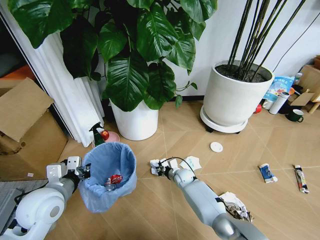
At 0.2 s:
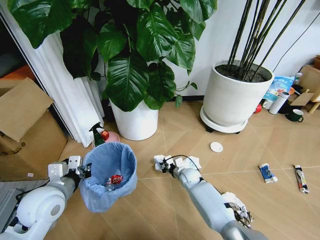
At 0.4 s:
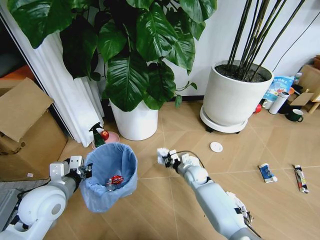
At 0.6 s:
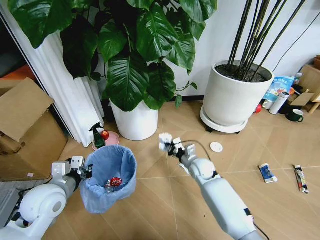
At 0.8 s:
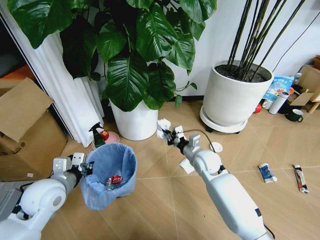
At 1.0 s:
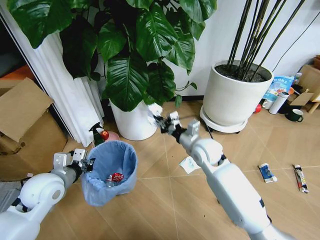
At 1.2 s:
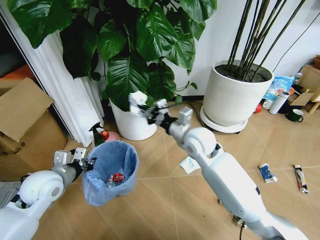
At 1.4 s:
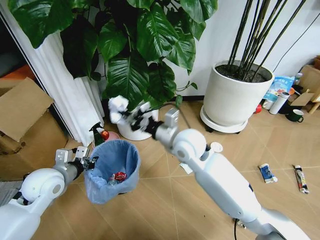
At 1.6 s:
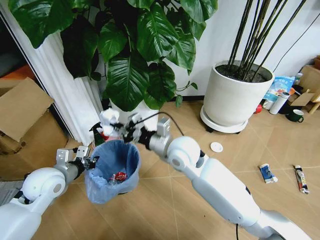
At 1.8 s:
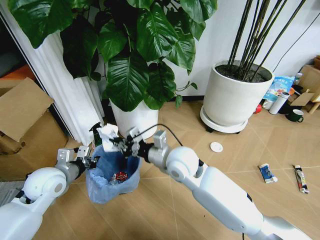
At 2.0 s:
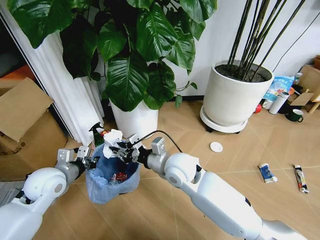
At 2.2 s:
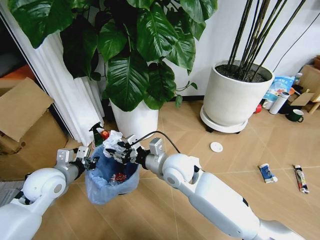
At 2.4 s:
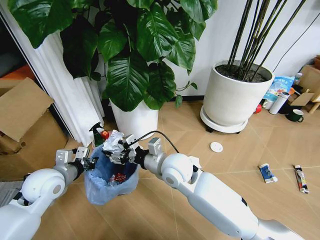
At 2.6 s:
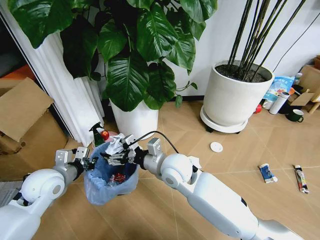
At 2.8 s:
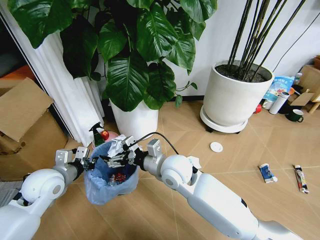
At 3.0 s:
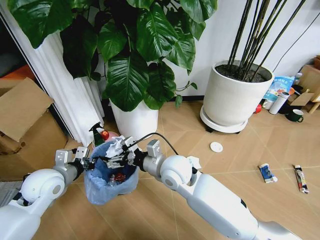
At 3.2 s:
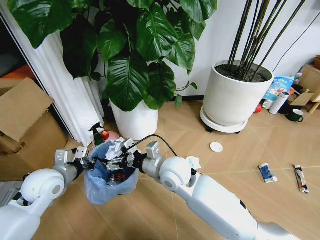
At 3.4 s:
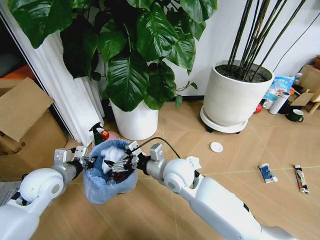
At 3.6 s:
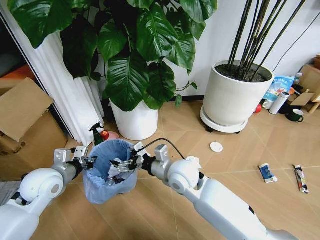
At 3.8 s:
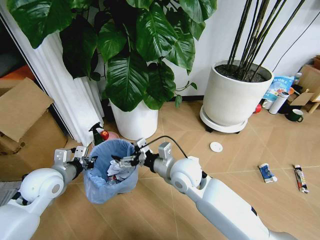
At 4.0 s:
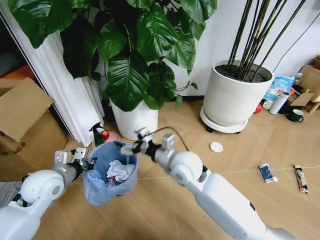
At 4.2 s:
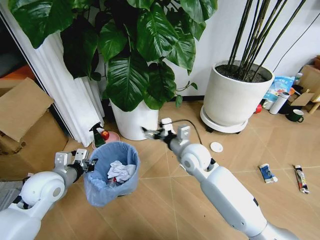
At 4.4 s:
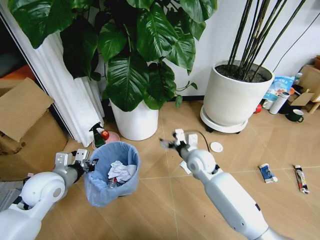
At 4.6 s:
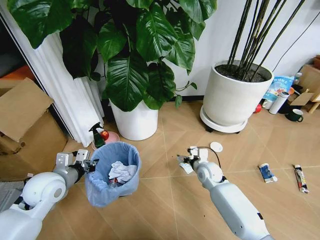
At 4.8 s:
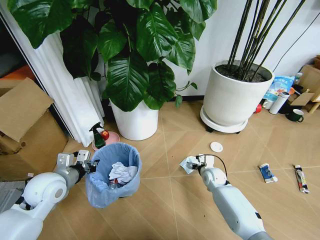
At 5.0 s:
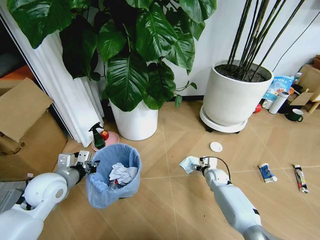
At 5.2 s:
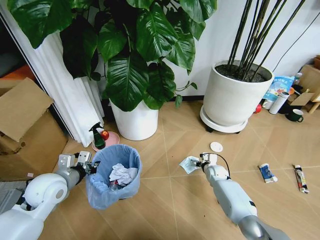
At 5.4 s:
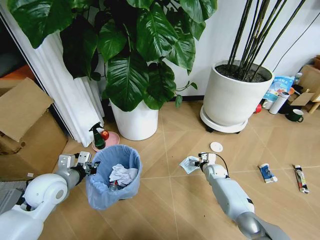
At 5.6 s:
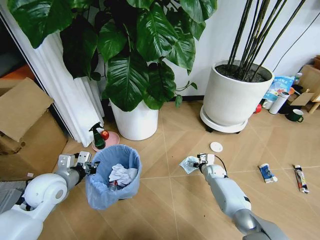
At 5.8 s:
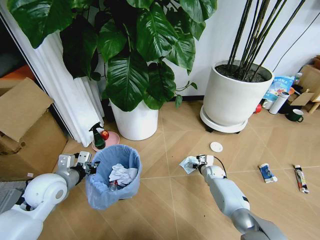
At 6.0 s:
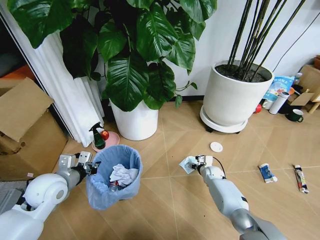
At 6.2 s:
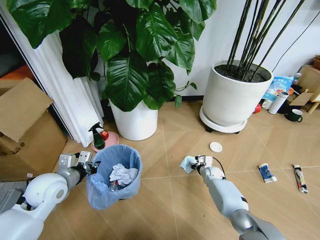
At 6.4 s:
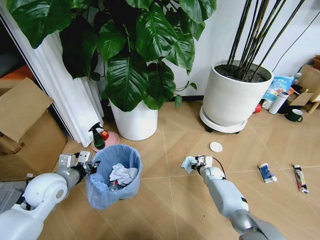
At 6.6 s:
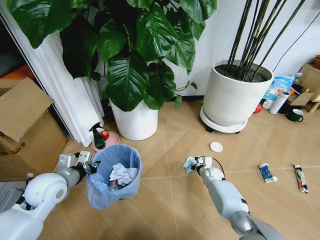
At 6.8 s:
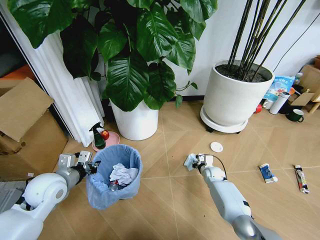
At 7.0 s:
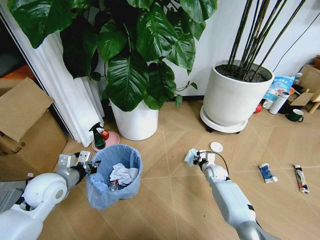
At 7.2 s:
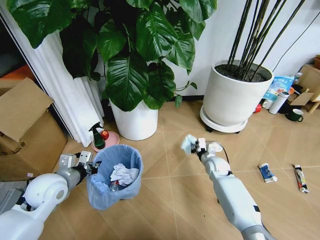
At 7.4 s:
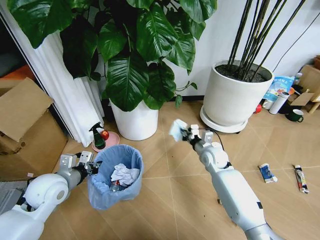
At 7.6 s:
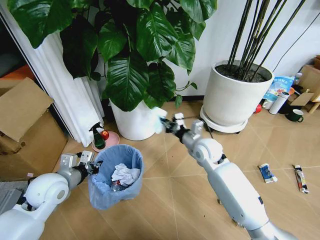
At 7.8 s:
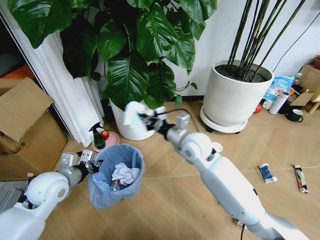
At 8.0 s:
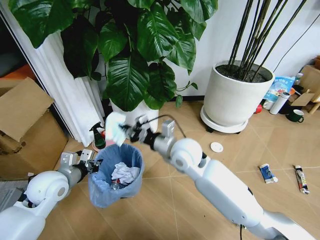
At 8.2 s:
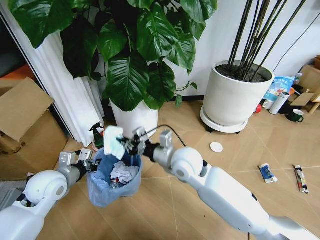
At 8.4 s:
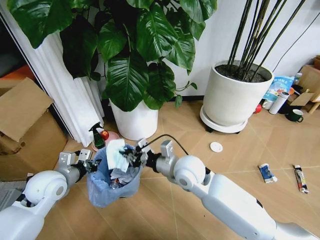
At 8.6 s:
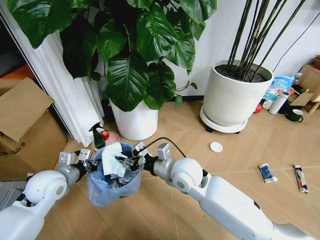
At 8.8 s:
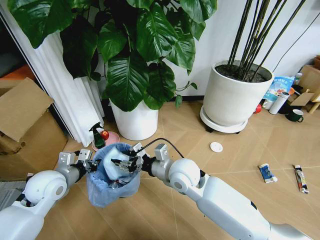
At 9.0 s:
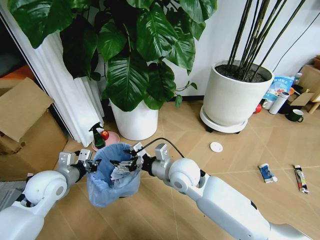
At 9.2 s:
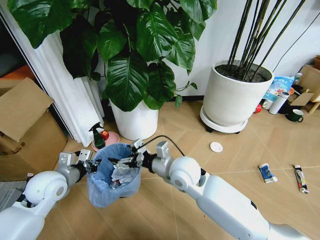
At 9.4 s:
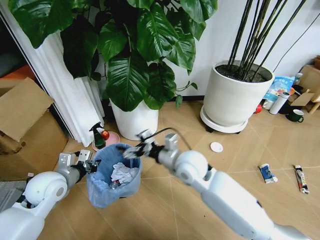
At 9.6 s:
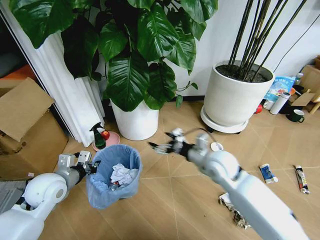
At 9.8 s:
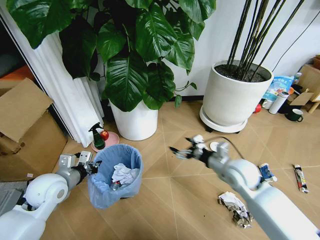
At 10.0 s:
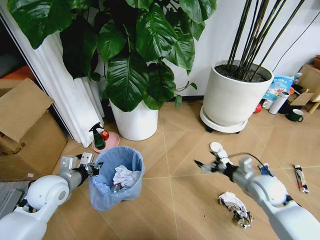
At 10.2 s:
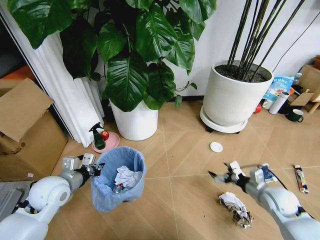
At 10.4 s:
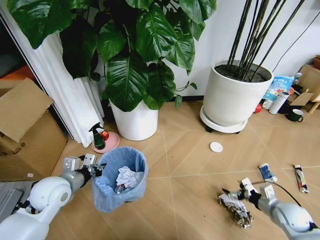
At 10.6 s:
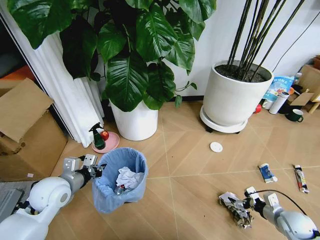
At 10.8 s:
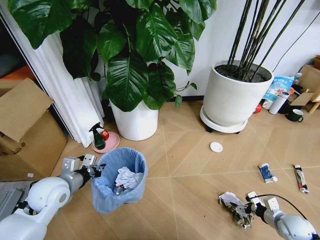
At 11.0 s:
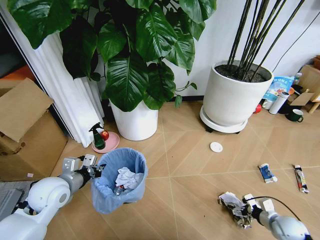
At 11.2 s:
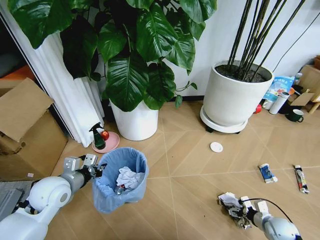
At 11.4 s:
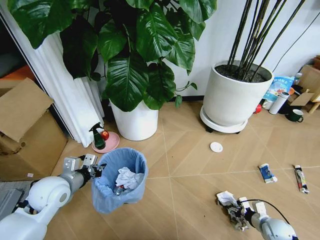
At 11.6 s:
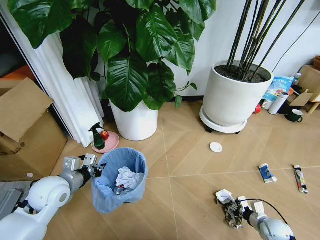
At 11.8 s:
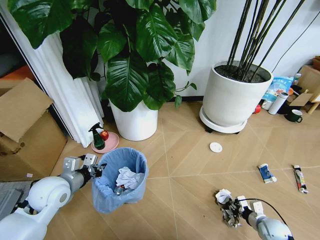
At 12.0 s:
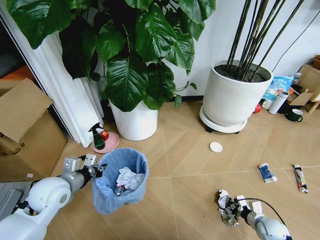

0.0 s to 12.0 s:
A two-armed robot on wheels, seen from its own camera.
Task of the whole recording: Pick up the trash bin and place the garbage on the floor into it.
0.0 to 1.6 s: The left gripper goes about 5 cm forward; the right gripper heads upward, covering about 30 cm.
1.6 to 3.0 s: The right gripper shifts by some 5 cm, and opens up.
3.0 to 4.4 s: The right gripper shifts about 15 cm to the right, downward and forward.
4.4 to 6.0 s: The right gripper goes some 25 cm downward and to the right.
6.0 to 7.6 s: The right gripper travels upward by approximately 25 cm, and closes.
7.6 to 9.0 s: The right gripper moves to the left and backward, approximately 15 cm, and opens.
9.0 to 10.4 s: The right gripper travels to the right and downward by approximately 40 cm.
10.4 to 12.0 s: The right gripper moves downward, approximately 10 cm, and closes.

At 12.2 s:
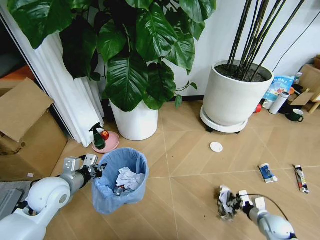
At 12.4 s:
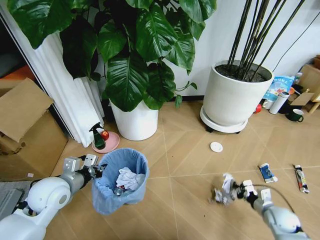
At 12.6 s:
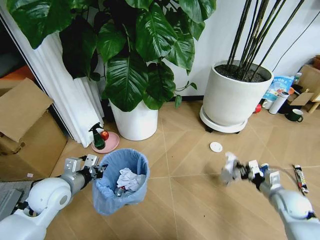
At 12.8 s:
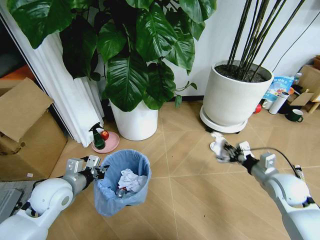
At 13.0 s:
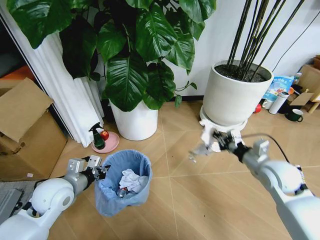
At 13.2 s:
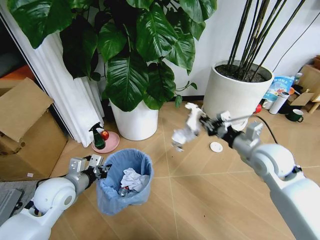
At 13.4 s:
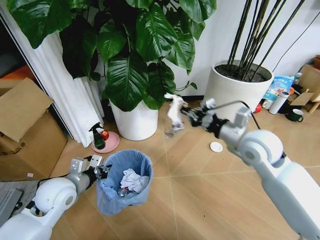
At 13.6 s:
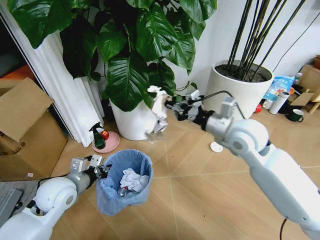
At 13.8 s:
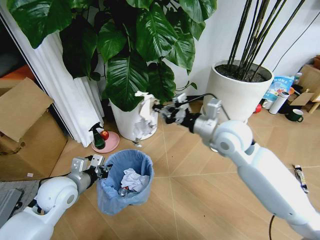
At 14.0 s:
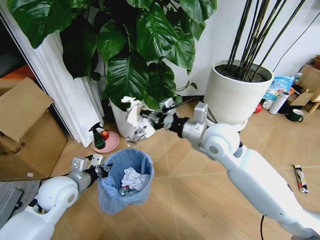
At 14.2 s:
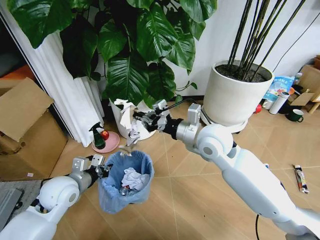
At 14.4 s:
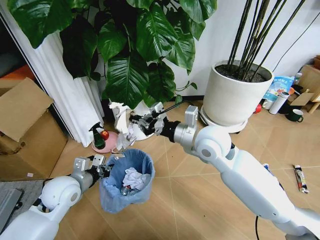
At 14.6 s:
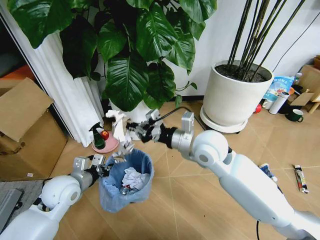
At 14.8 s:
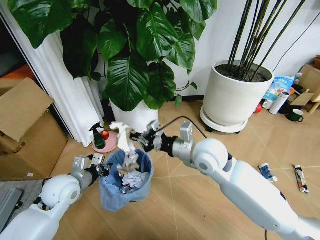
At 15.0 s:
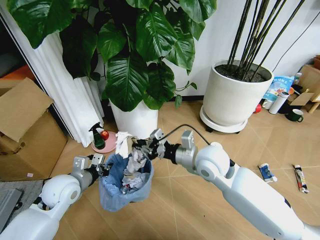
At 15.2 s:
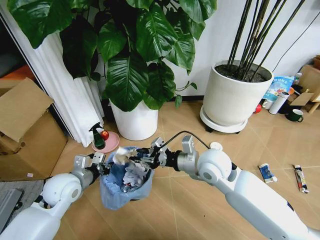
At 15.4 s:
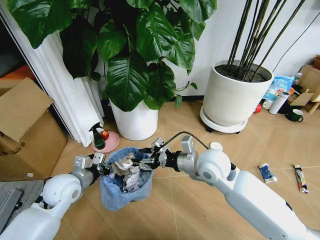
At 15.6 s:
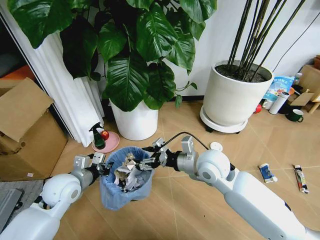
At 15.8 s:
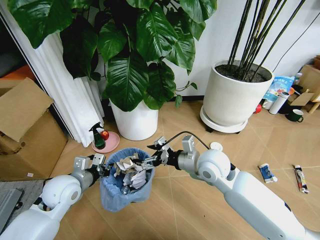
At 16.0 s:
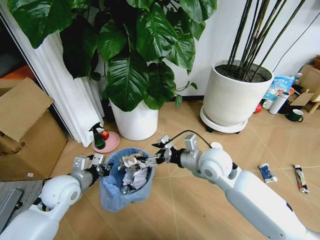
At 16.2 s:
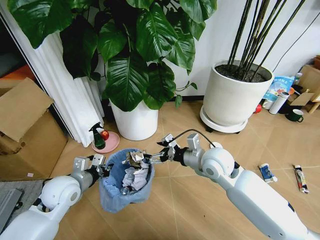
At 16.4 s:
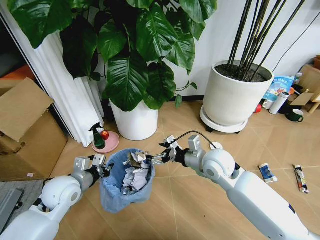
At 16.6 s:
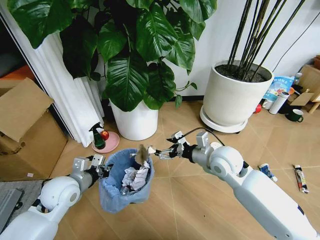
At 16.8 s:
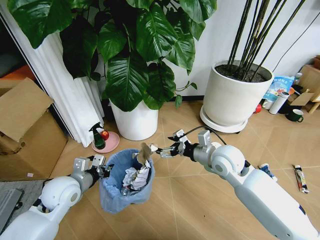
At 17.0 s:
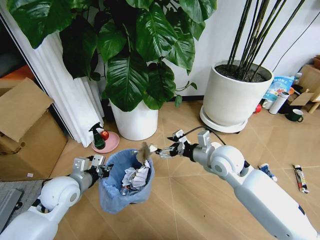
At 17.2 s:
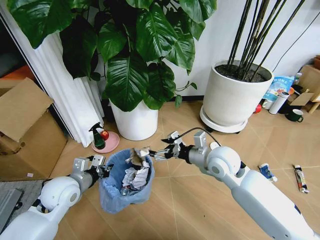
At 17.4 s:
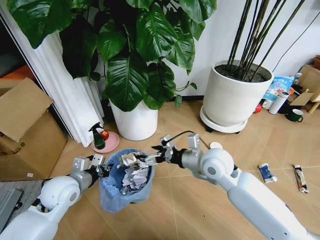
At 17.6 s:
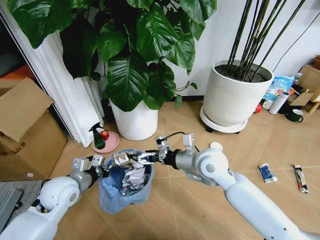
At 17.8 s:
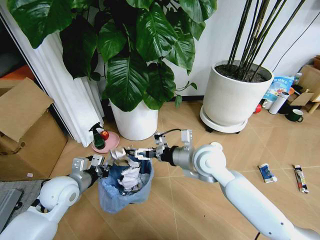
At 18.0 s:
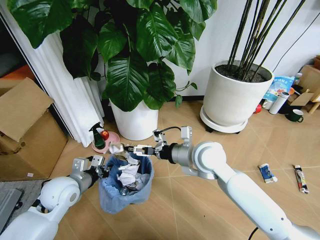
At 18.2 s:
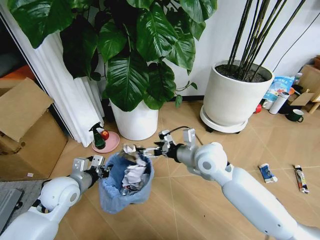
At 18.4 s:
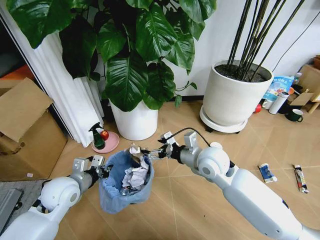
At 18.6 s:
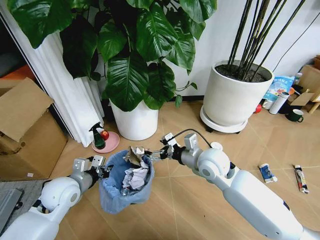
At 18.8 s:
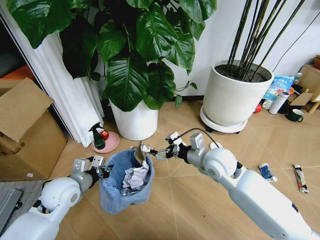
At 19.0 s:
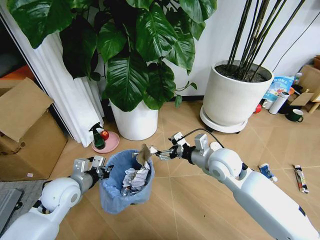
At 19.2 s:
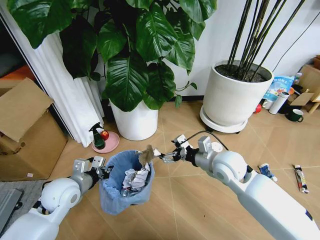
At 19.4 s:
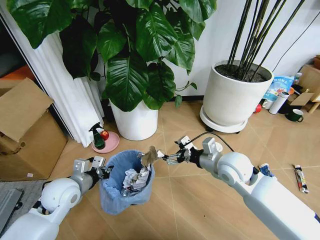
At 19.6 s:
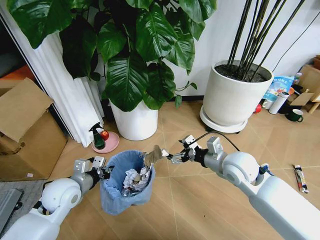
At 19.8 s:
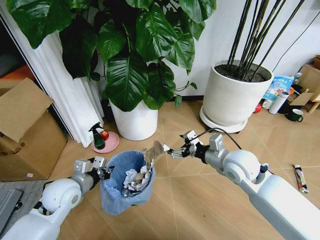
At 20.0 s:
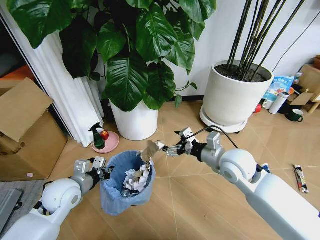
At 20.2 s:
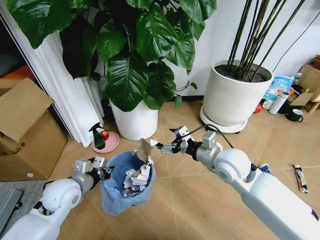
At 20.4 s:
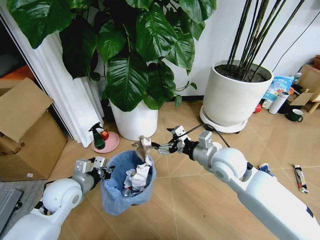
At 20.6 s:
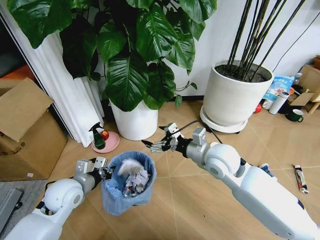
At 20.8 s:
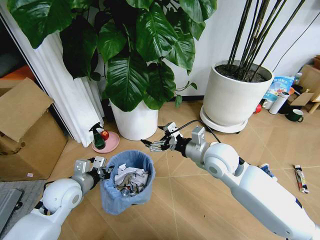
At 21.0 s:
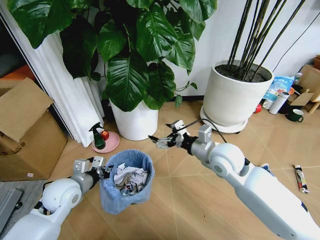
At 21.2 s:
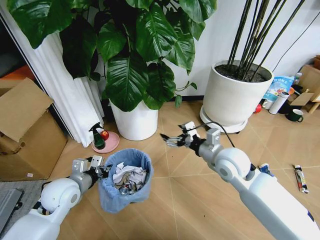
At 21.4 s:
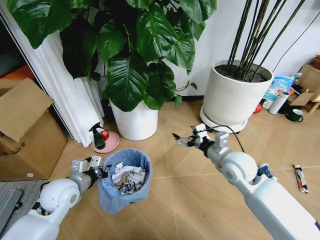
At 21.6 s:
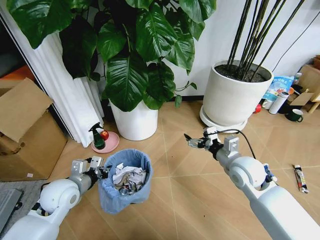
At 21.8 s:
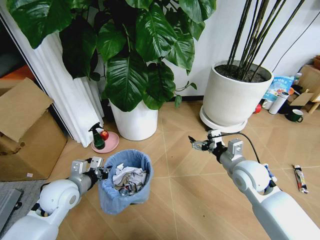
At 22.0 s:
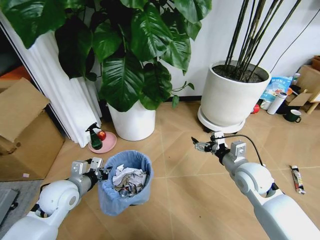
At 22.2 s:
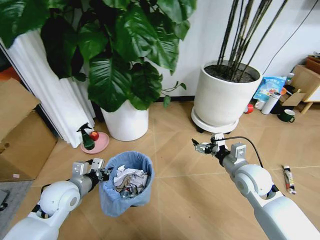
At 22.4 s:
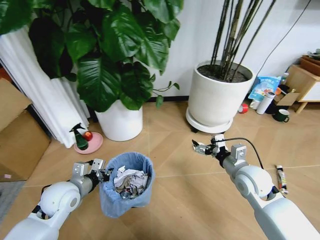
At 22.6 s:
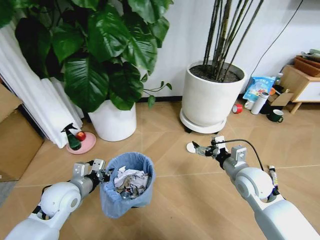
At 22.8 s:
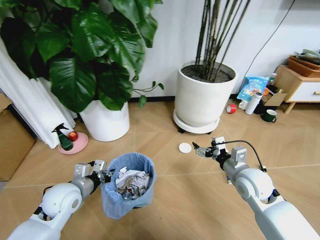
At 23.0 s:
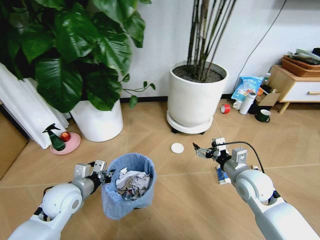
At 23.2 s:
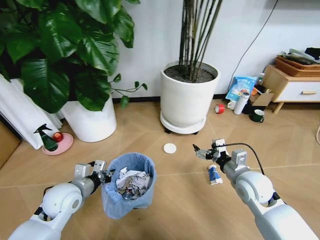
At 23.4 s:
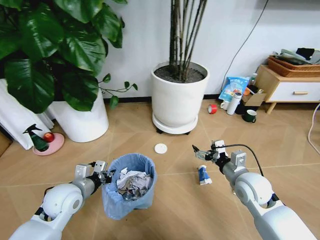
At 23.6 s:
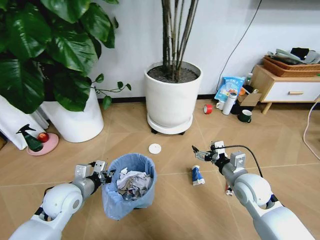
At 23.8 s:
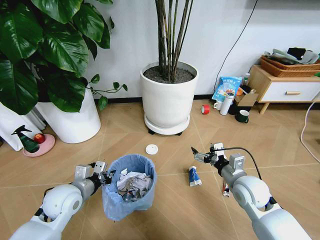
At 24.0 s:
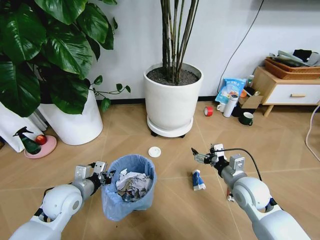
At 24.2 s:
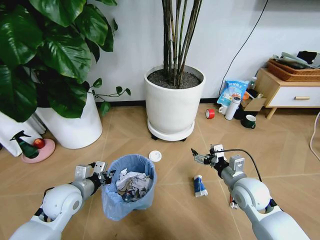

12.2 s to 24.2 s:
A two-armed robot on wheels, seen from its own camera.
Task of the whole recording: Pick up the trash bin and place the garbage on the floor into it.
12.2 to 13.8 s: The right gripper moves upward and to the left, some 40 cm.
13.8 to 15.2 s: The right gripper travels downward by some 10 cm.
15.2 to 16.6 s: The right gripper ends up roughly 5 cm from where it was, and opens up.
16.6 to 18.2 s: The right gripper shifts by roughly 5 cm.
18.2 to 19.8 s: The right gripper goes about 10 cm to the right.
21.2 to 22.6 s: The right gripper goes some 10 cm to the right and downward.
